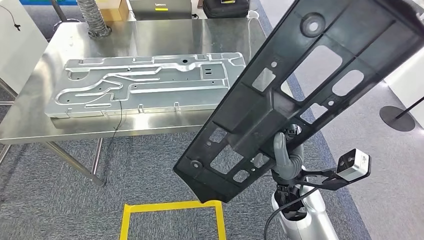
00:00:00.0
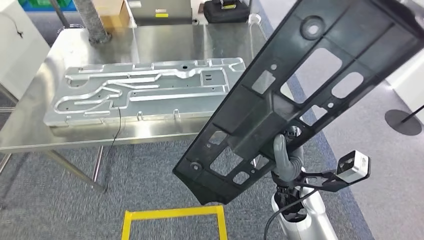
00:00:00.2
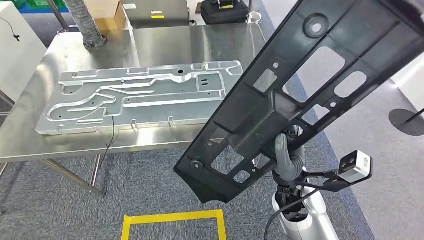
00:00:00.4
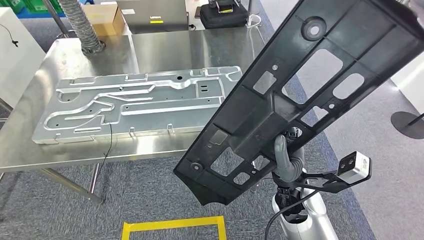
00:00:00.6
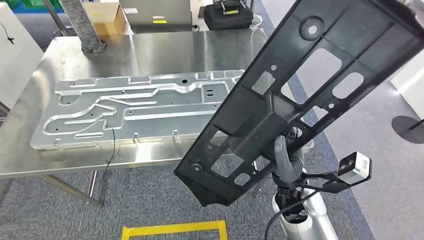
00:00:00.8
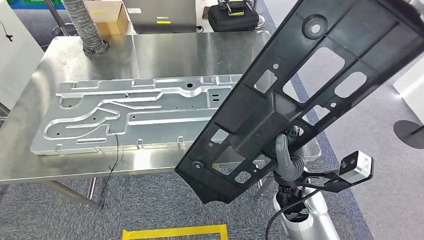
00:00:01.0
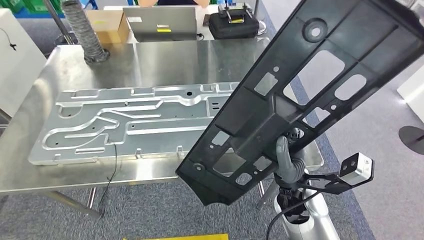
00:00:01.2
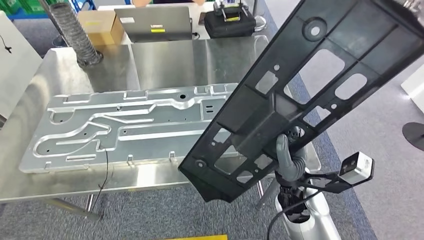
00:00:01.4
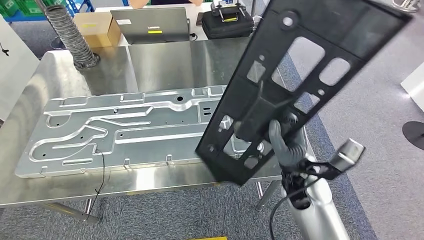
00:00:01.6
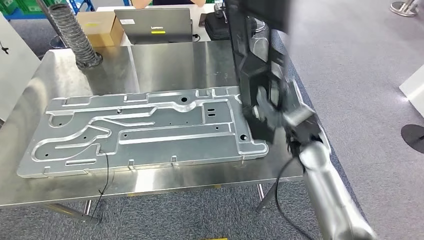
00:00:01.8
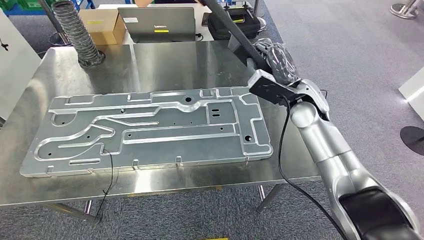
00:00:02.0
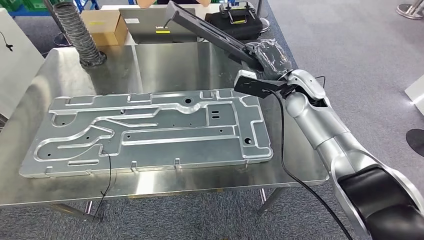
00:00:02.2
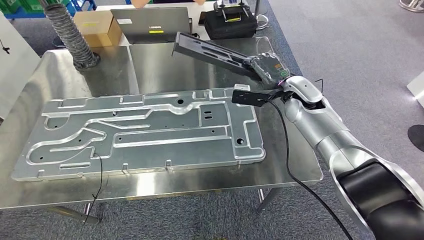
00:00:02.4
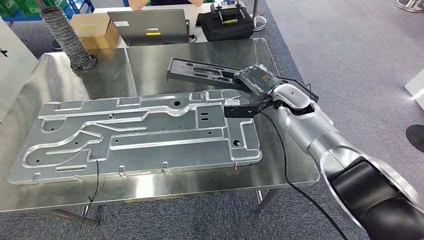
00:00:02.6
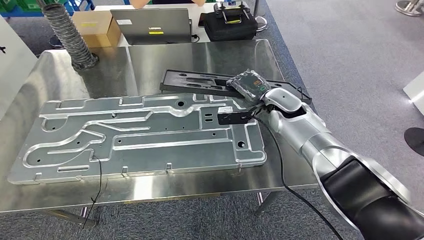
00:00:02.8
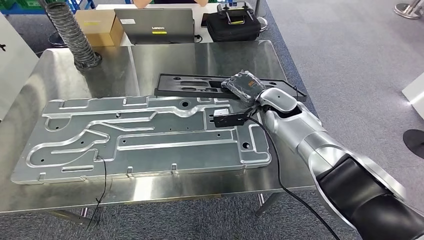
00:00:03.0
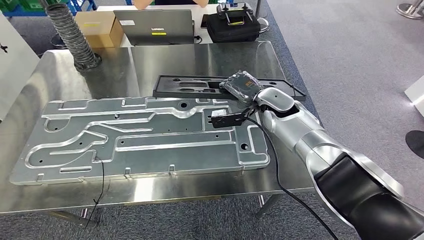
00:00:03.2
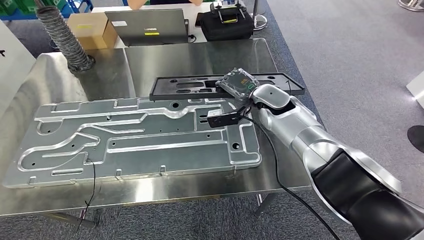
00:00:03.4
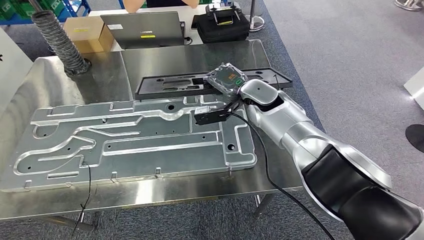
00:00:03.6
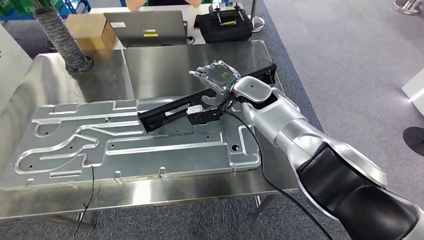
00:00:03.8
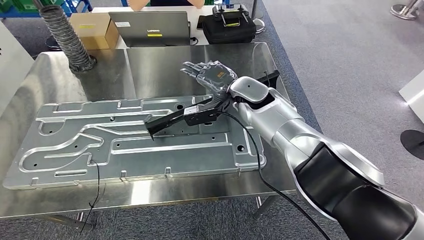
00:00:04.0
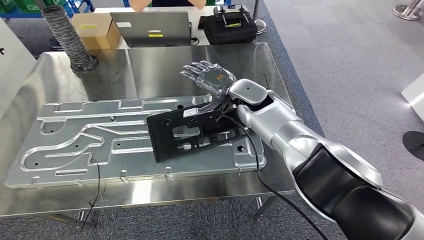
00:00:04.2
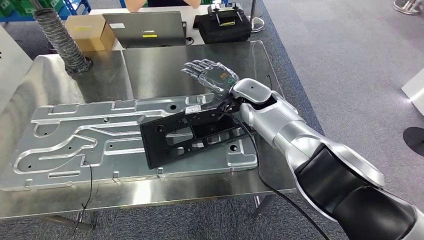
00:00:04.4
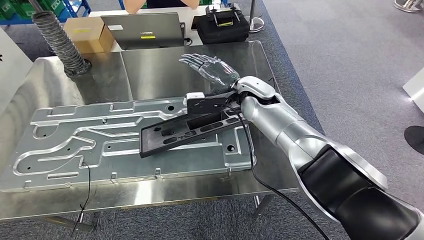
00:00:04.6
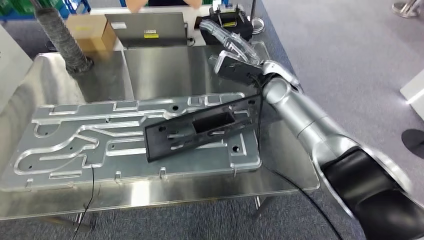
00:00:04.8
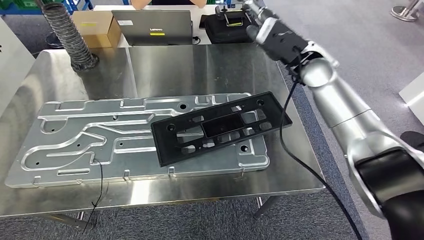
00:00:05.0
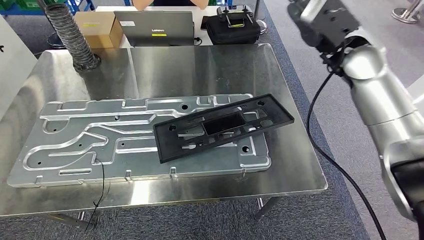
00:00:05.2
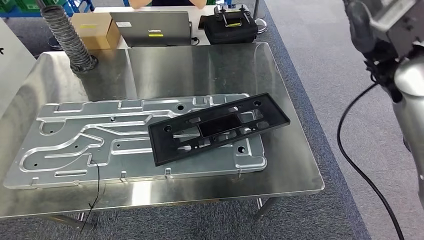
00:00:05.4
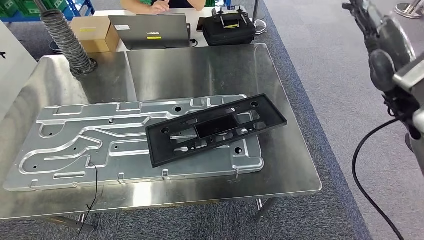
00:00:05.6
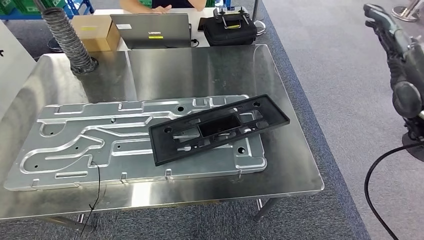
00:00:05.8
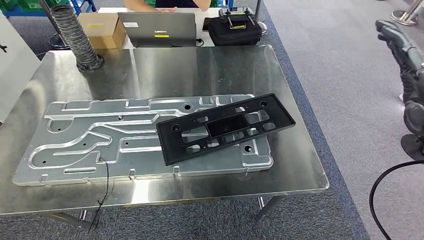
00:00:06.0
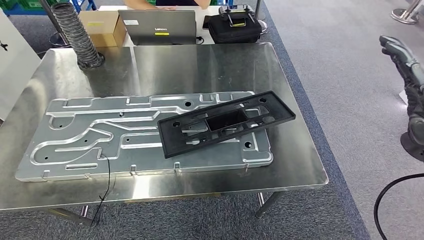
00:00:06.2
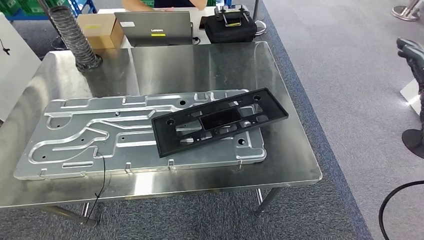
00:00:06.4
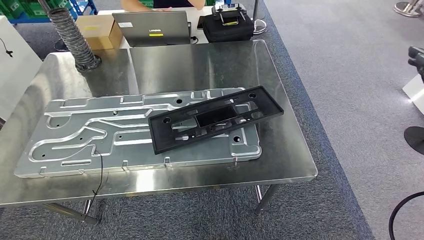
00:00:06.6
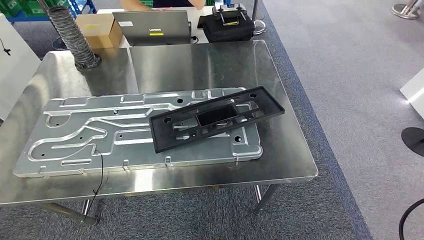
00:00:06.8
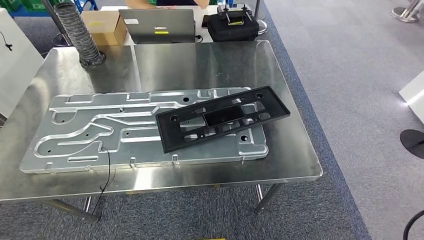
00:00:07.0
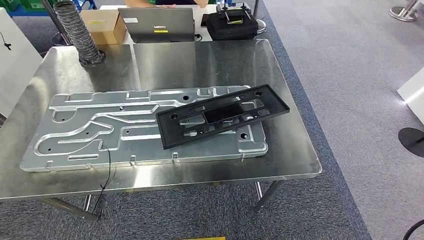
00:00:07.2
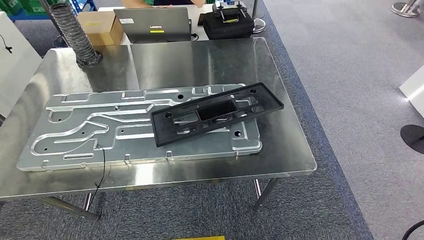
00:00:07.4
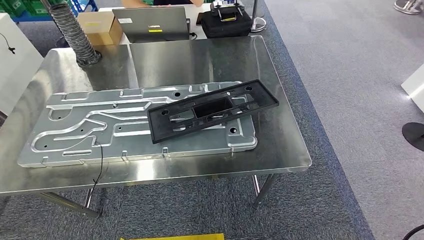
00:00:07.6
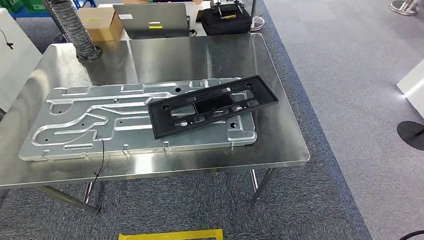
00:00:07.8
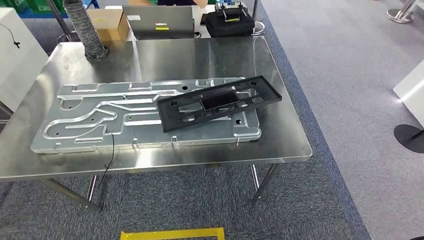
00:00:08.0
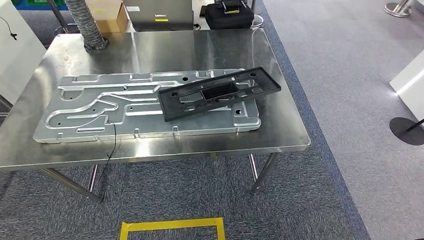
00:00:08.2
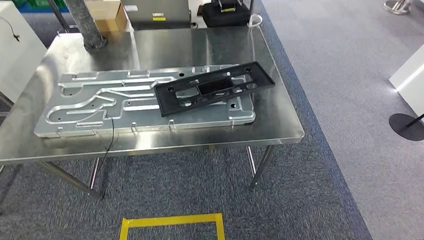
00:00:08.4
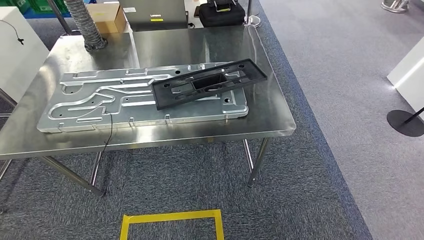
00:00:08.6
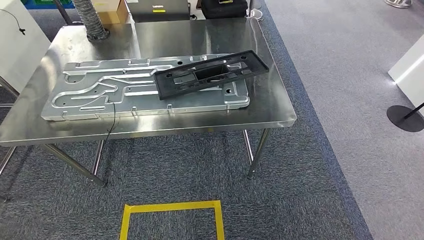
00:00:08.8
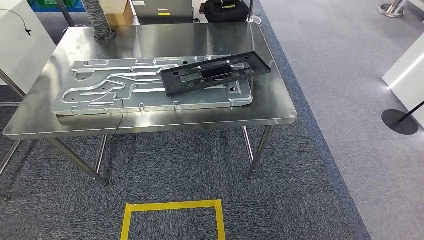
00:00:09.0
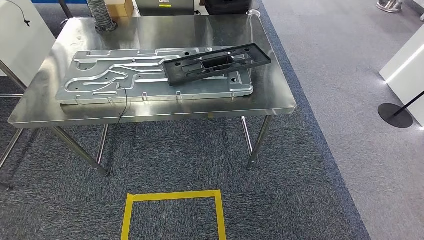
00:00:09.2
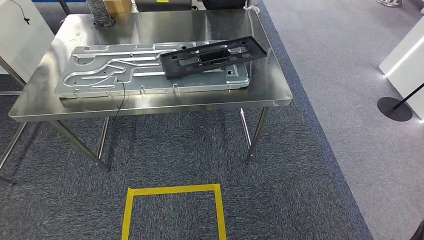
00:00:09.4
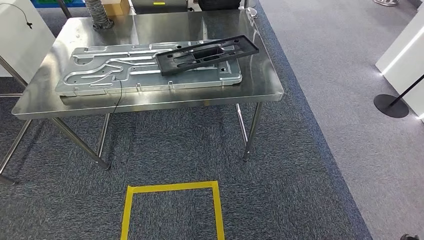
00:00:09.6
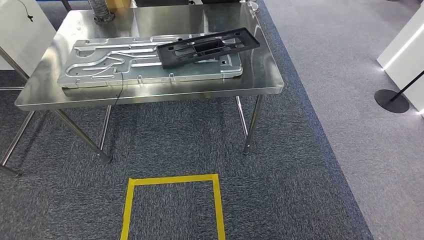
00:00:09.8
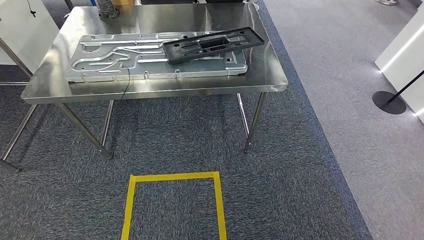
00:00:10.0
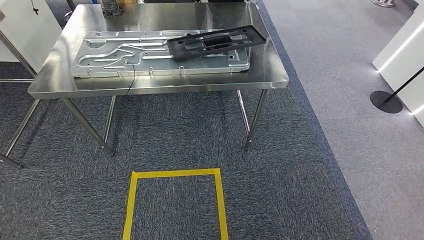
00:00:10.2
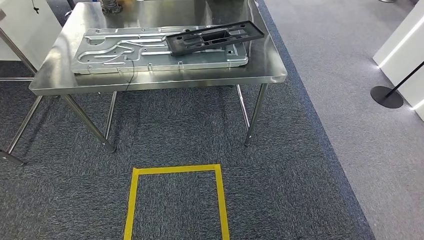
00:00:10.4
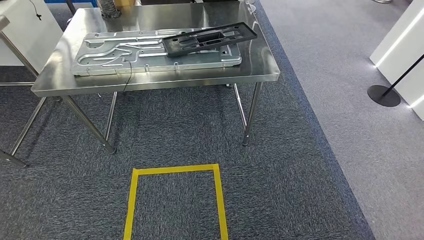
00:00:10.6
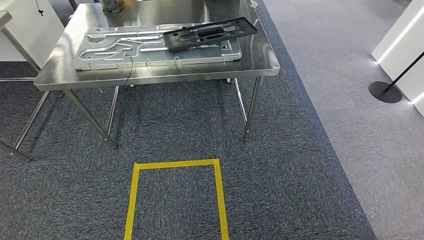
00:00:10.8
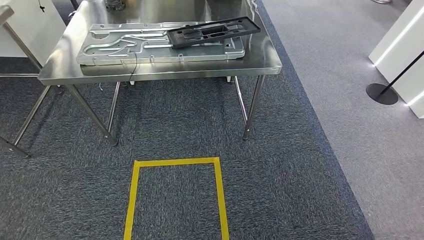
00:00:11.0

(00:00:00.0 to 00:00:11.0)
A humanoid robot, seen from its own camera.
Step, 00:00:00.0 - 00:00:06.2: Insert the large material into the corresponding slot on the workbench.

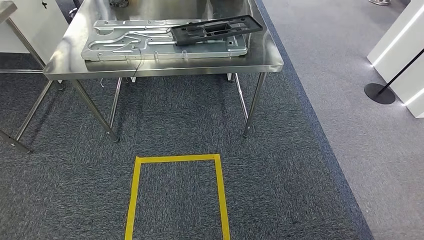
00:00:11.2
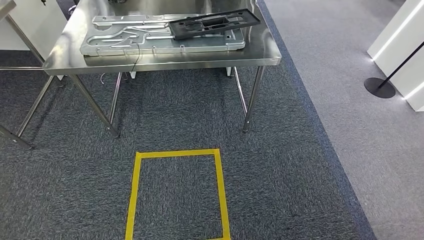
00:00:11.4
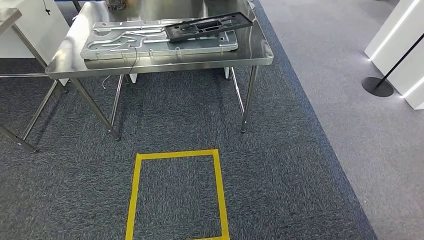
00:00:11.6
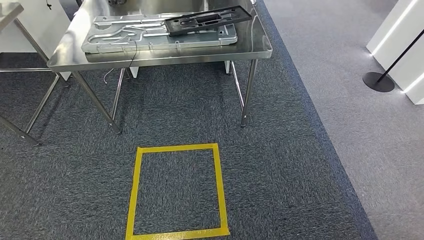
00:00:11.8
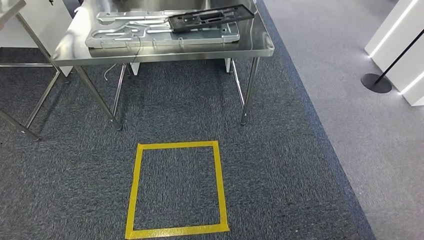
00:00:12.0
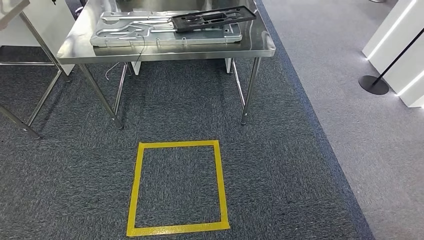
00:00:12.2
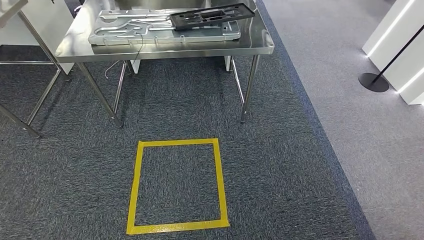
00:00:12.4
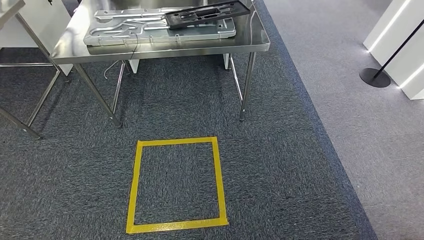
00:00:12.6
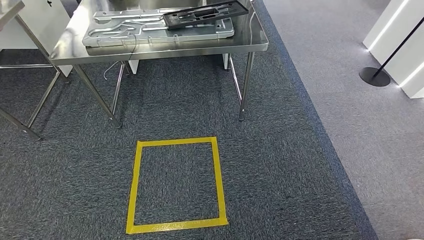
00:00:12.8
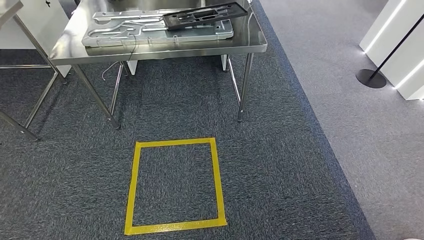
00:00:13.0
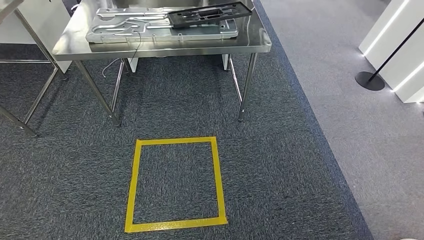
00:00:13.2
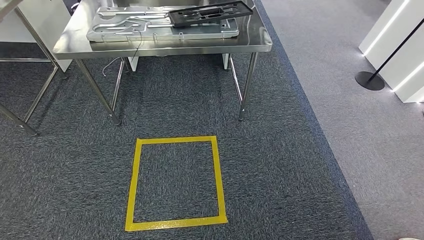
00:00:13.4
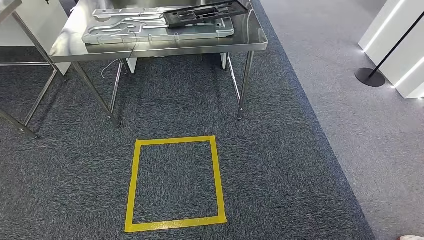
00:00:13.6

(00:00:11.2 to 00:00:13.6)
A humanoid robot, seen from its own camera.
Step, 00:00:11.2 - 00:00:13.4: Move to the initial position of the shelf.
00:00:11.2 - 00:00:13.6: The hands make only small movements.

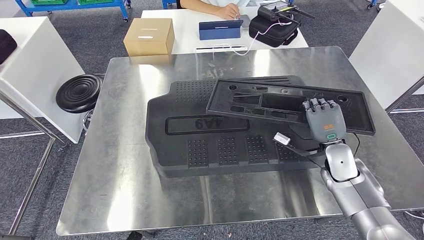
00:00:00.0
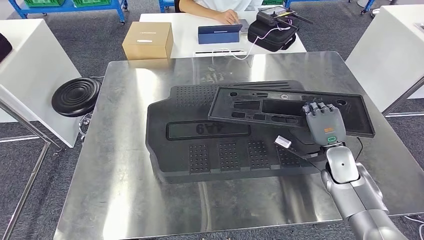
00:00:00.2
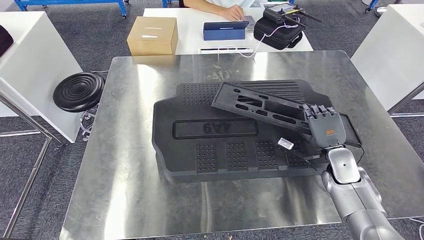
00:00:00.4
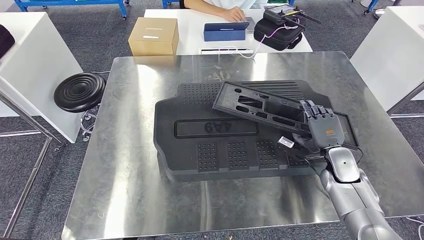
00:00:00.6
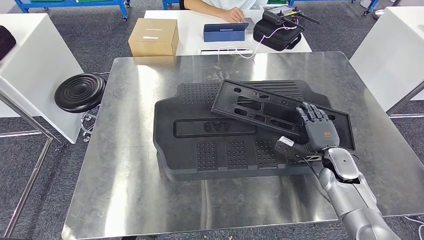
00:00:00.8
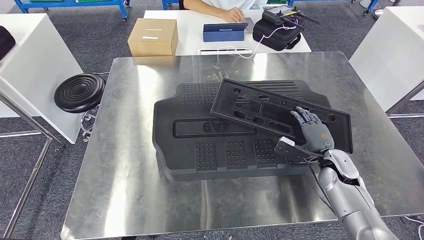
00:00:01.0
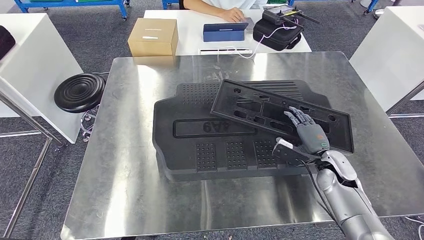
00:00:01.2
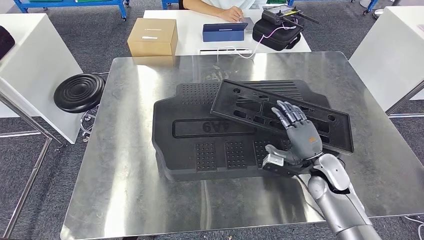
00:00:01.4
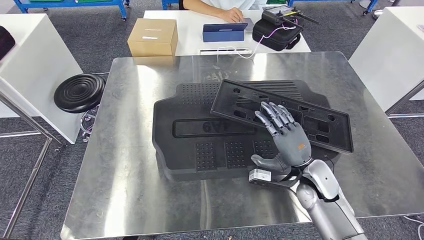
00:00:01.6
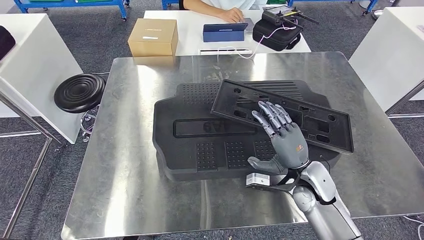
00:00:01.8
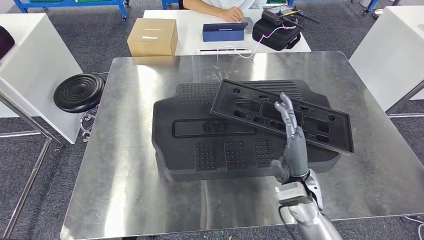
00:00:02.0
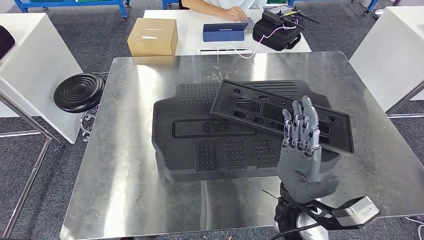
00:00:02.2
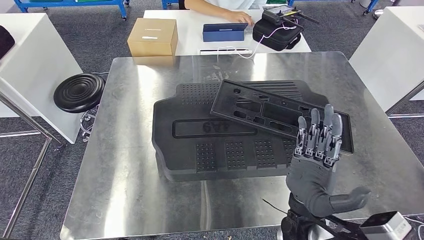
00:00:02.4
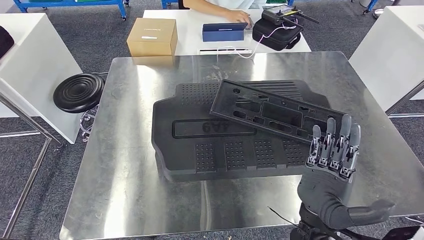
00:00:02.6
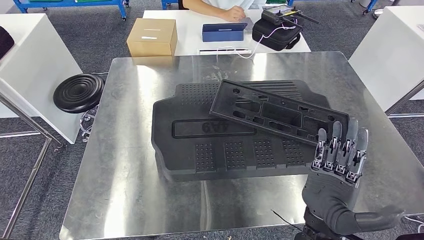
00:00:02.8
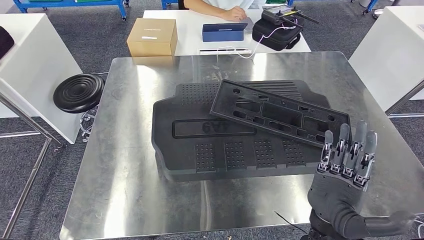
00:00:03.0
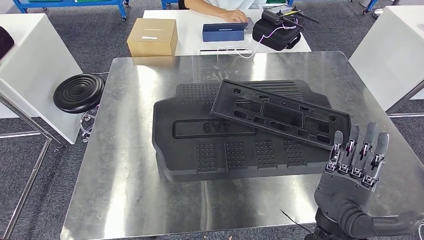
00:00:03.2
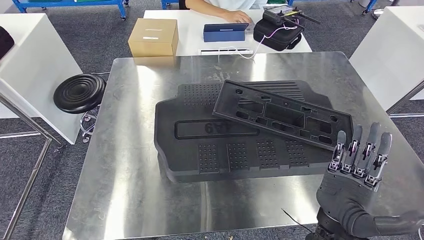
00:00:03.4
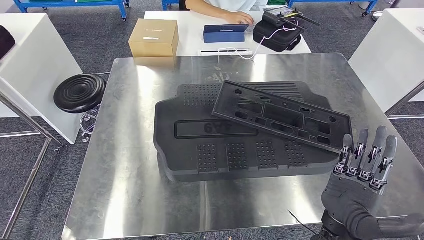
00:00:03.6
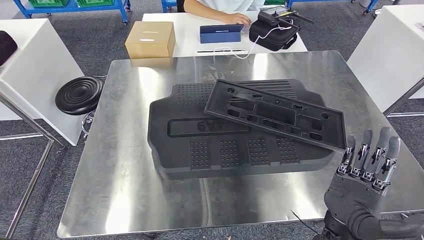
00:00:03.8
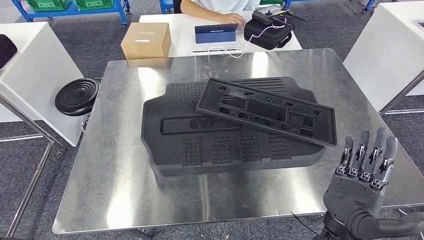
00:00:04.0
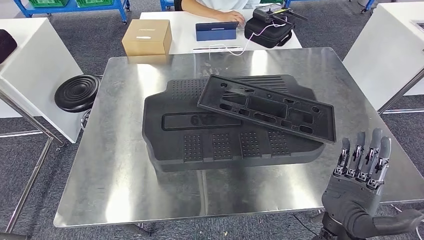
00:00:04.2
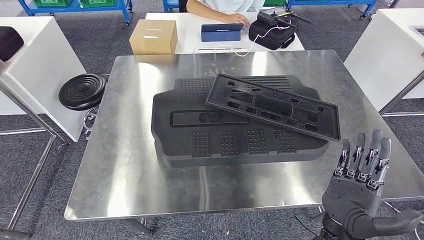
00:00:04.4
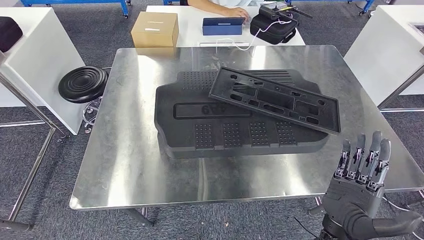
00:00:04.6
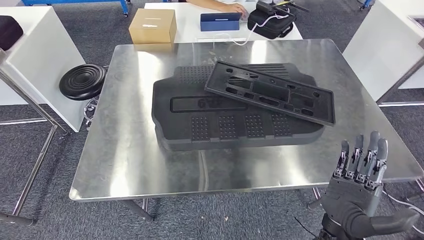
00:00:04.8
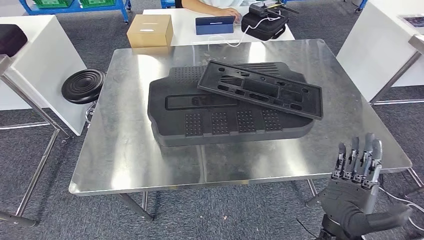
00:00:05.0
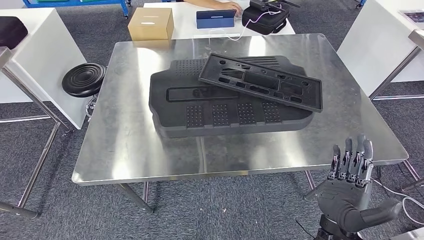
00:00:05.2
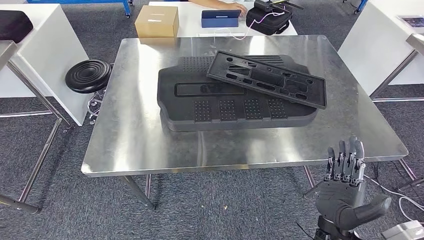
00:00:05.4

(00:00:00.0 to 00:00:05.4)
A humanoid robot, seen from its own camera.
00:00:01.4 - 00:00:02.8: The right hand is displaced backward, to the left and upward by about 20 cm.
